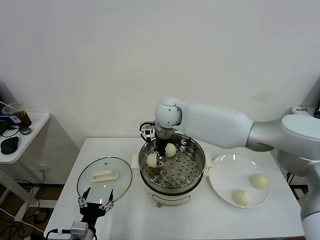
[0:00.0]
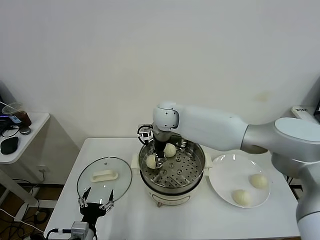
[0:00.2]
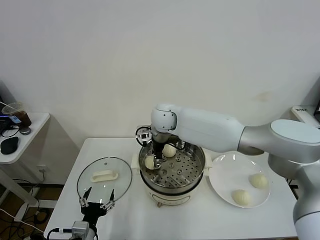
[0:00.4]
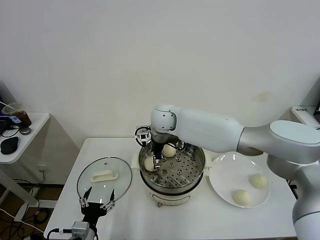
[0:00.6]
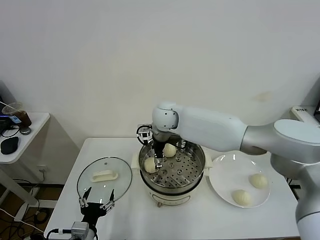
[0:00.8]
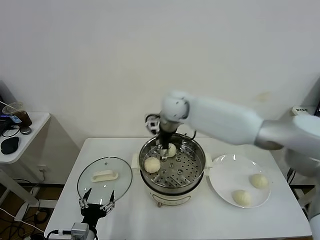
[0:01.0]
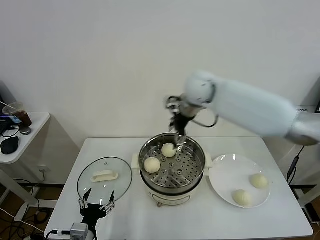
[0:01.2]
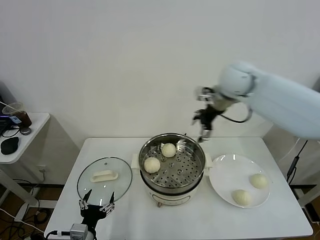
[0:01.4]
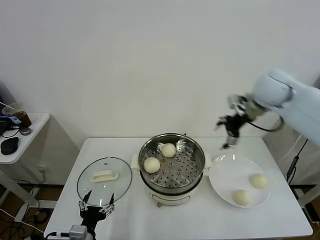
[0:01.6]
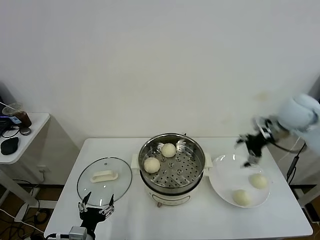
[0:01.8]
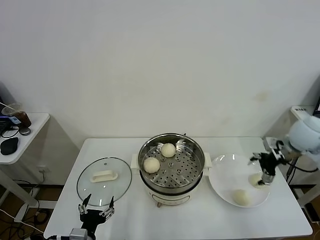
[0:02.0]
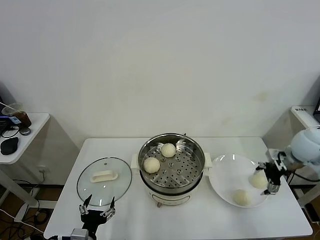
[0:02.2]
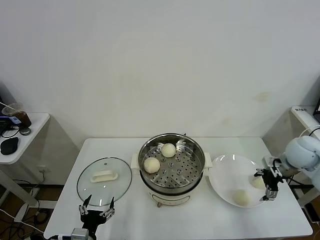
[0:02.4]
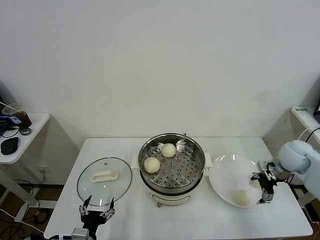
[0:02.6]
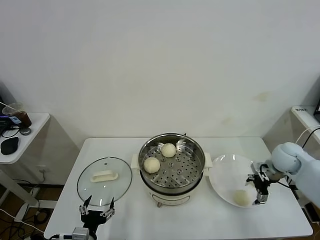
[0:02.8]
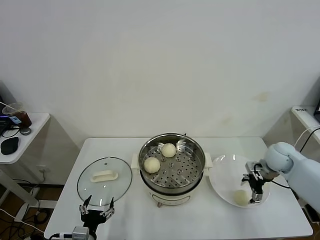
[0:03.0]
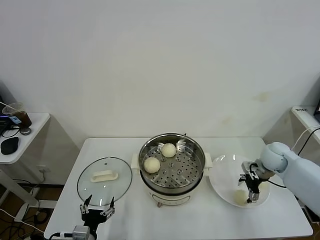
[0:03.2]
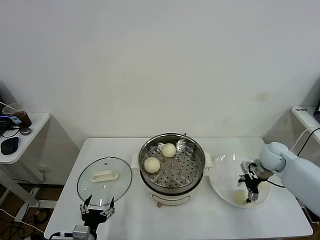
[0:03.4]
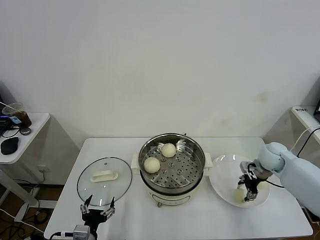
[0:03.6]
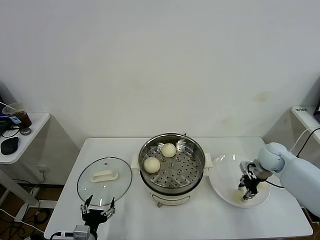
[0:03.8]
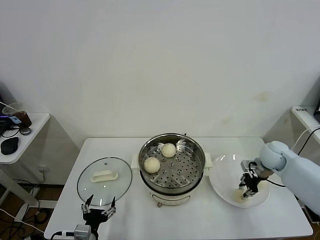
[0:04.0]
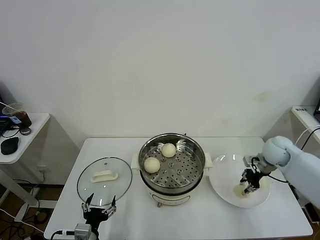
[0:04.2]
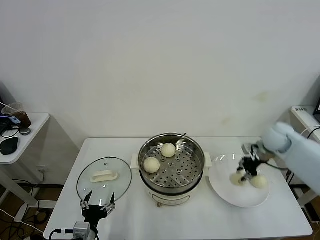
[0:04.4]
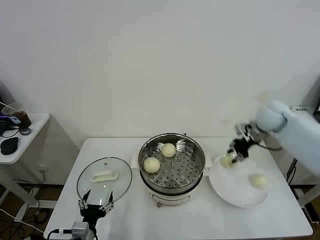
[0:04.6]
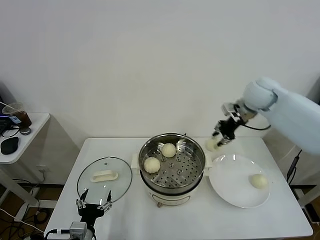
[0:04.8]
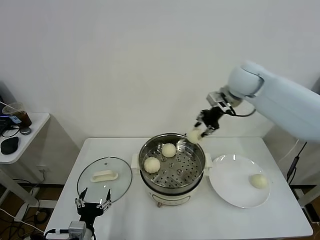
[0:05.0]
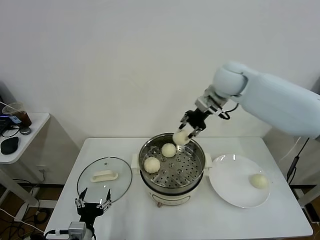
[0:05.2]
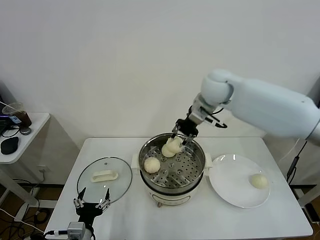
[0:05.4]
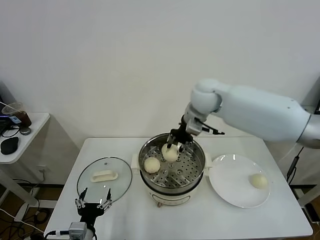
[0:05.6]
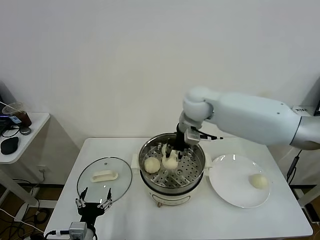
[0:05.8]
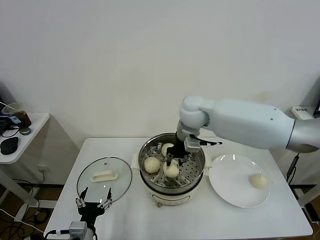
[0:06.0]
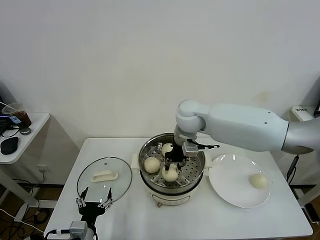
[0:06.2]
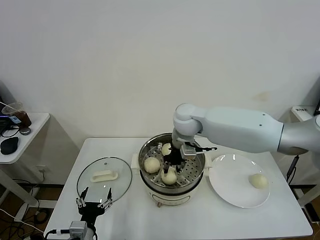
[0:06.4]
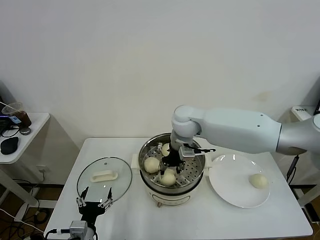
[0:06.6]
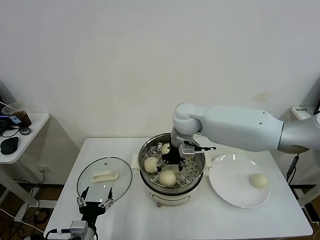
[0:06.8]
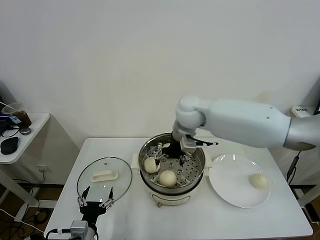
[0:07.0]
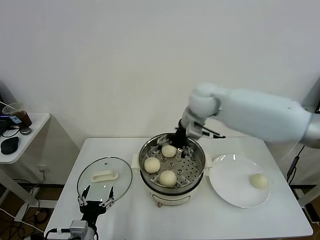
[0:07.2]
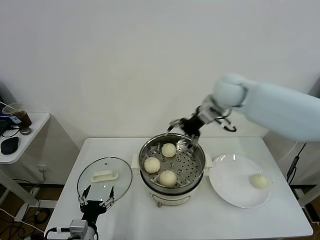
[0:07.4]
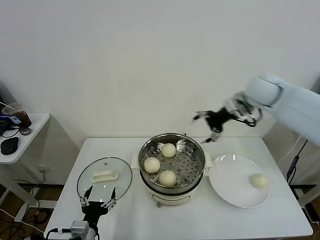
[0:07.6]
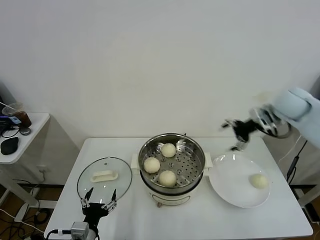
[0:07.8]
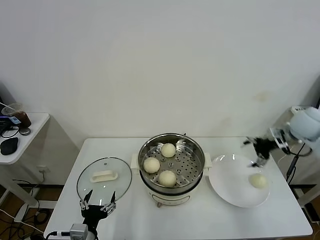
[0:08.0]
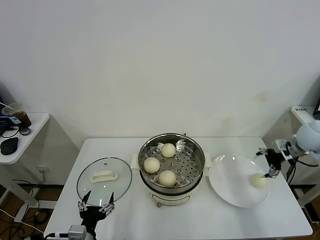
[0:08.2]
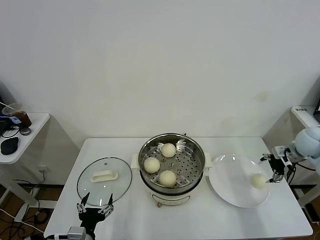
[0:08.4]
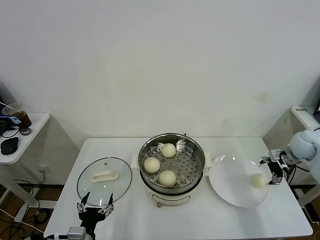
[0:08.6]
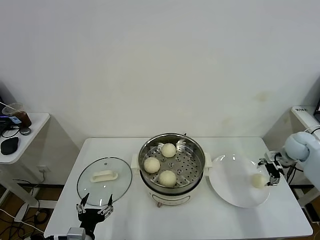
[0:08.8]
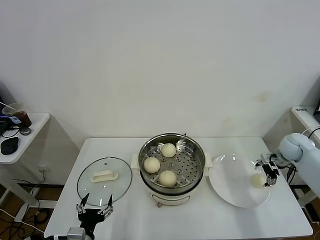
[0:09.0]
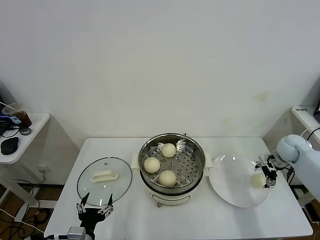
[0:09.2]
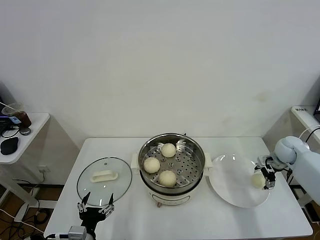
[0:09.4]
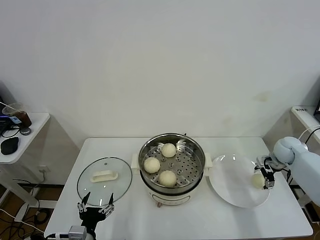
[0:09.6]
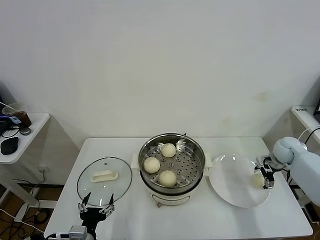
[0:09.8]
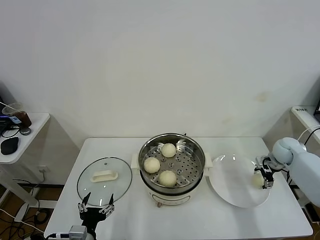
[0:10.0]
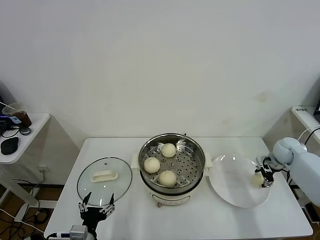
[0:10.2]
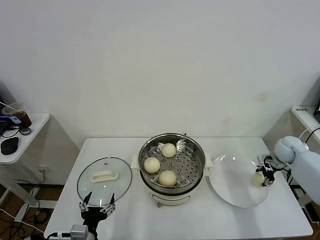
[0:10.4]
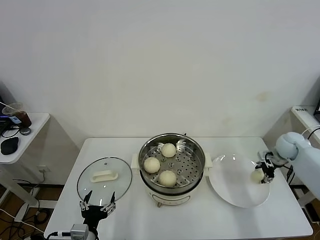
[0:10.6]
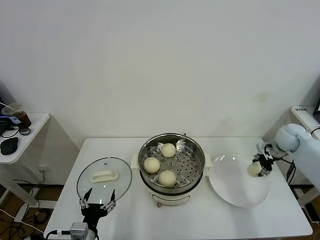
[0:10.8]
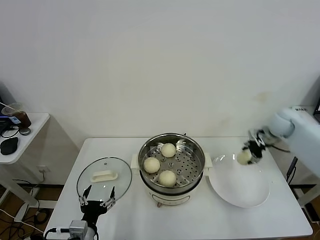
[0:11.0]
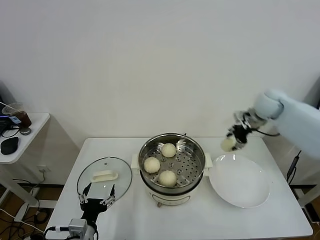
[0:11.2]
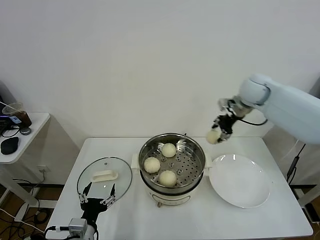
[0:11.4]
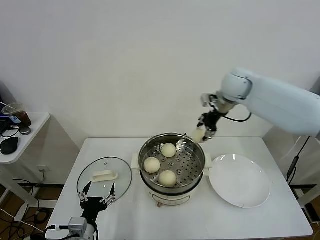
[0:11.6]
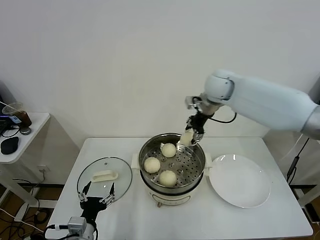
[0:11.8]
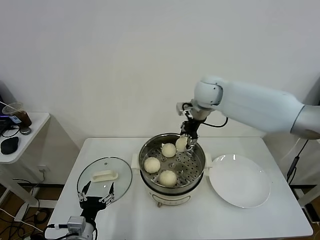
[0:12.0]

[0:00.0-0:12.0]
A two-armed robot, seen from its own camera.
Task of the whole recording: take steamed baozi put them in steamer.
Step, 0:01.0 to 0:04.0: Grasp the baozi in the plate with right gripper.
Step, 0:04.2 to 0:06.8: Place the baozi on the steamer with right gripper.
Step, 0:07.0 to 0:10.4: Grasp the baozi in the plate with right gripper.
0:00.0 to 0:01.6: The right gripper goes about 30 cm to the right, and opens.
0:01.6 to 0:03.0: The right gripper goes roughly 25 cm downward and to the right.
0:03.0 to 0:04.4: The right gripper is displaced upward by roughly 5 cm, and closes its fingers.
0:04.4 to 0:06.0: The right gripper heads to the left, covering approximately 30 cm.
0:06.0 to 0:07.6: The right gripper goes some 20 cm to the right, and opens up.
0:07.6 to 0:09.0: The right gripper travels downward and to the right by approximately 30 cm.
0:09.0 to 0:10.4: The right gripper closes.
0:10.4 to 0:12.0: The right gripper moves to the left and upward, about 40 cm.

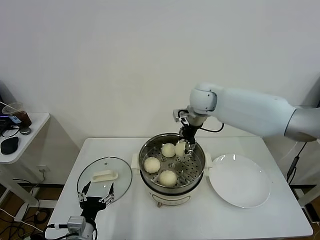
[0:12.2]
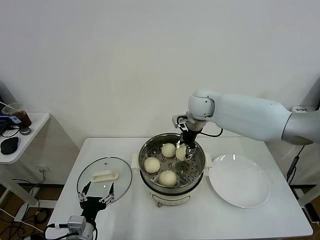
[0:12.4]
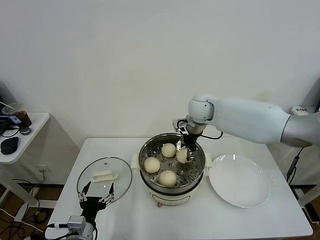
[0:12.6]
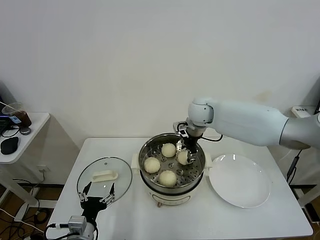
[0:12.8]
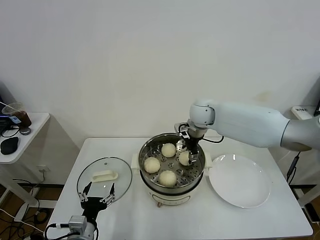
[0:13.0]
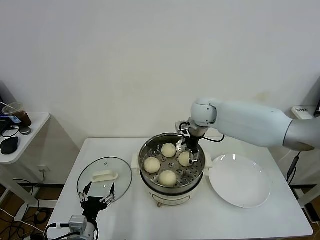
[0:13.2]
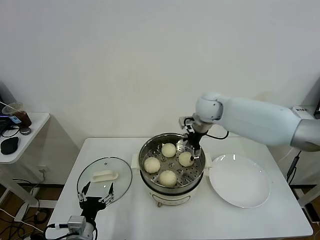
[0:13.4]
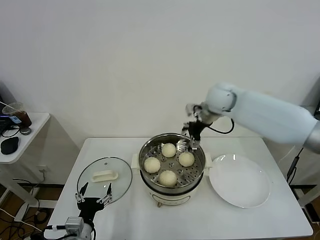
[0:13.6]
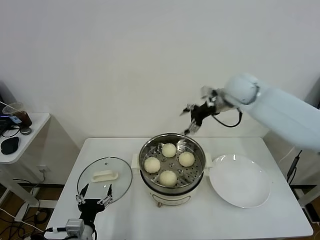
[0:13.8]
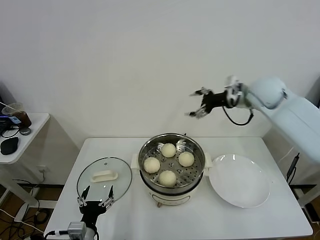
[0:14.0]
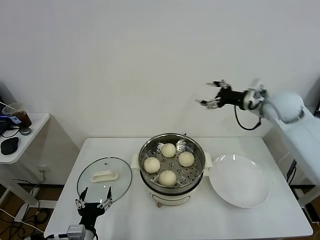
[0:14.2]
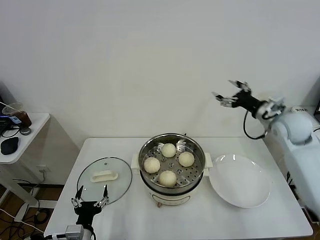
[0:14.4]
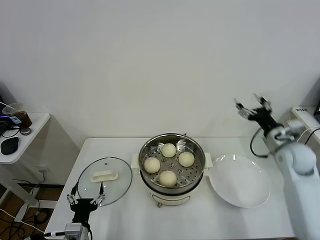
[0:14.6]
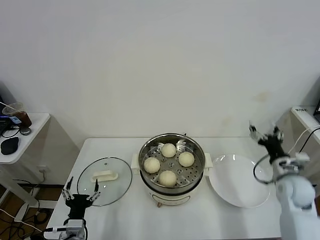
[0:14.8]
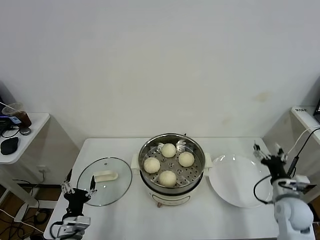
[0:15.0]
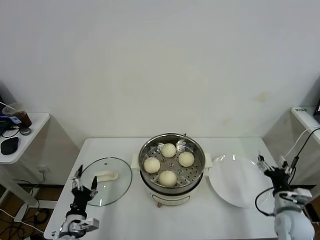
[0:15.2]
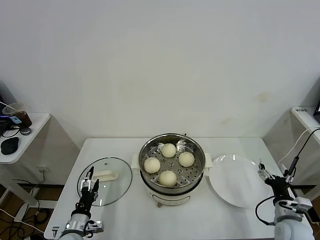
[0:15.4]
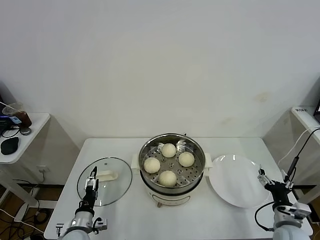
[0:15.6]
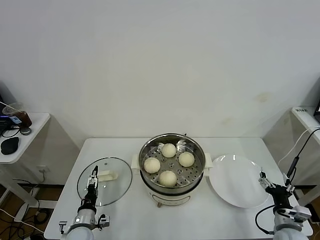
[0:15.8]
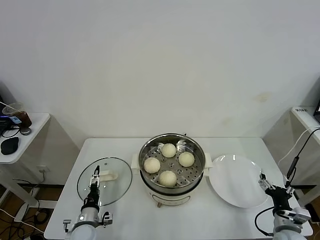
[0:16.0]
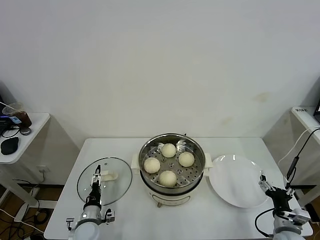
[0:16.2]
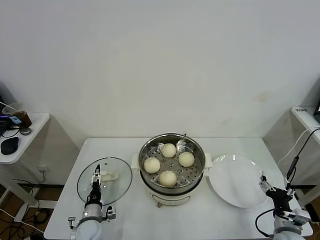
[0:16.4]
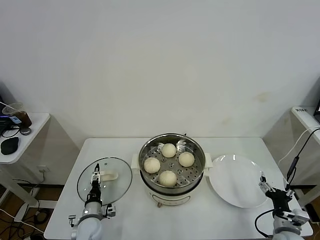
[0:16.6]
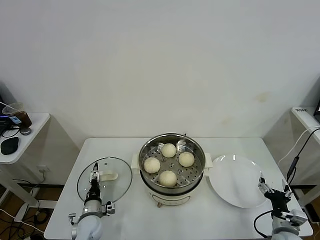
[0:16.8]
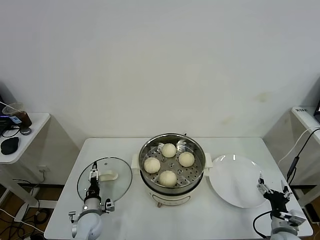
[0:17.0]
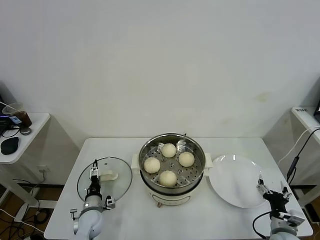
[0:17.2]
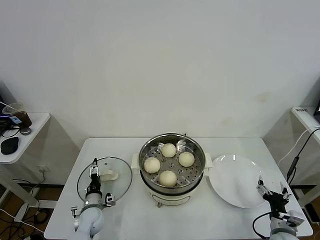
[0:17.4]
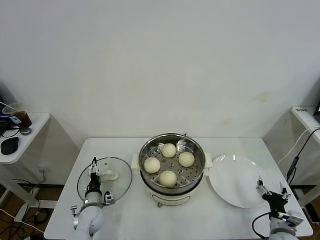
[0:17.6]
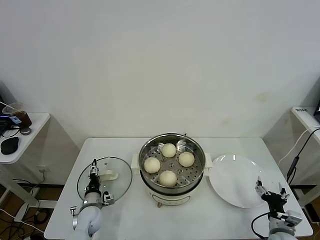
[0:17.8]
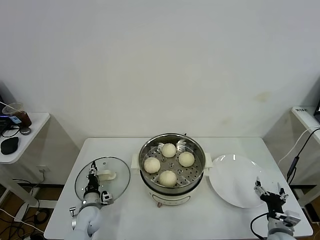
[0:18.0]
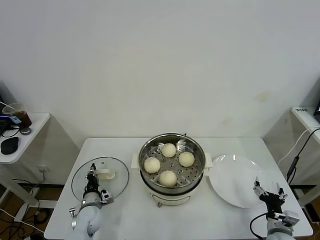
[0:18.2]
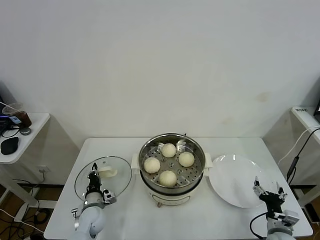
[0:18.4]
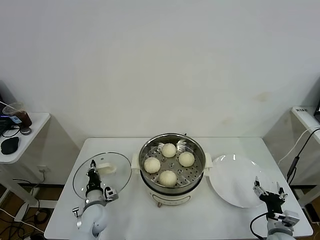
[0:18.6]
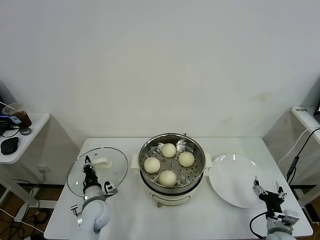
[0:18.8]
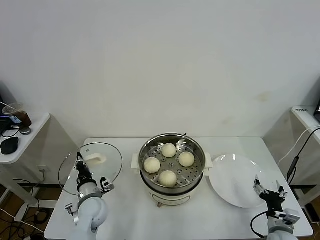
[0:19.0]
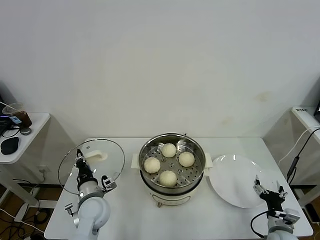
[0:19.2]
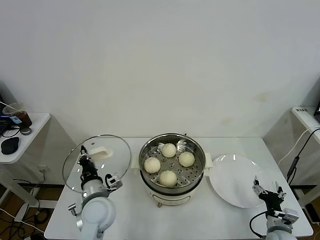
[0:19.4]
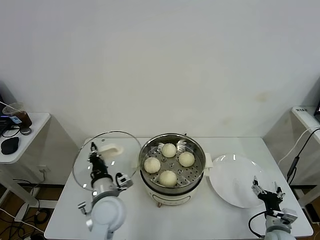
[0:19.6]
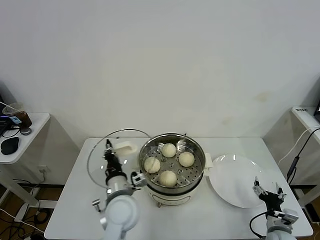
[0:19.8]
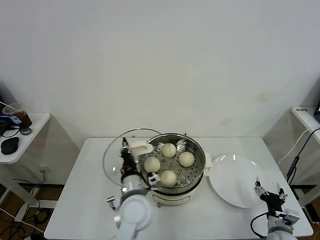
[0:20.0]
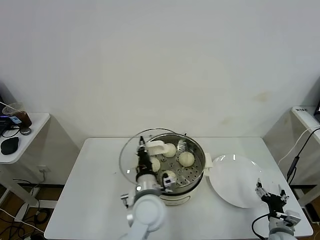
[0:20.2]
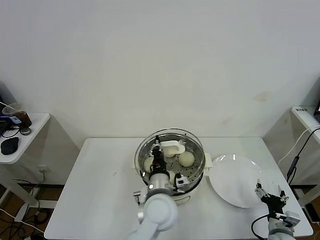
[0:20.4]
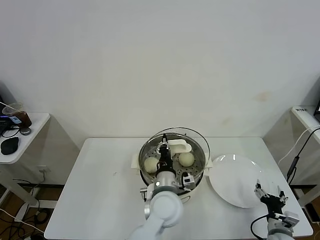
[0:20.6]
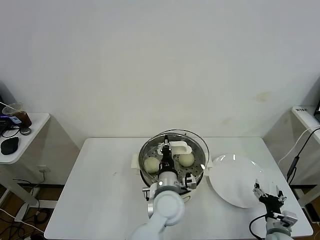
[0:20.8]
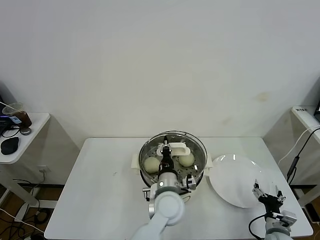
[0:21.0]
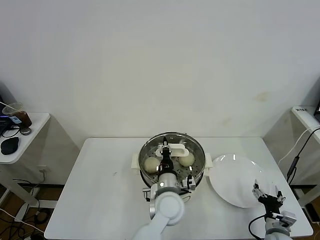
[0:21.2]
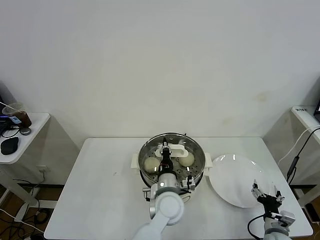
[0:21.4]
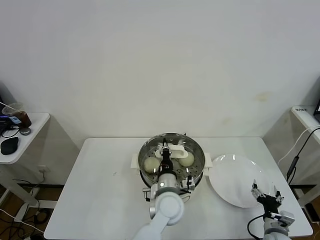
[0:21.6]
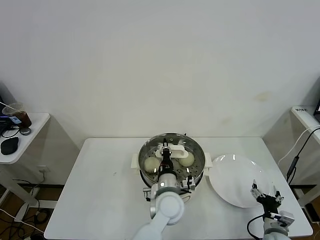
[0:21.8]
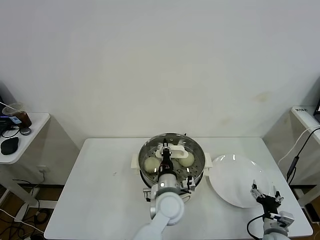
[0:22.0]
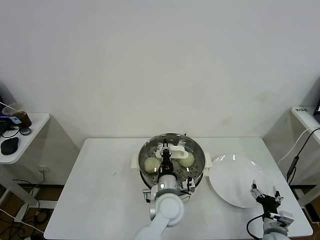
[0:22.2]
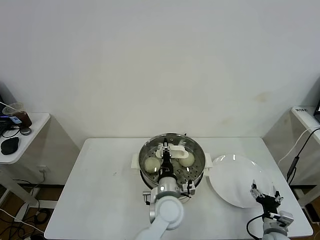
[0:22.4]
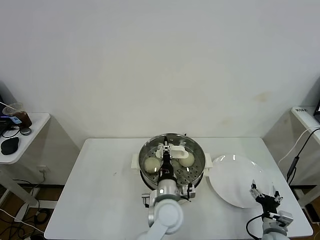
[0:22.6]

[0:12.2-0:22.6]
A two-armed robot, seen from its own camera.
Task of the whole recording: take steamed baozi put them in steamer.
Step, 0:13.6 to 0:18.4: Grasp the pot lid with left gripper.
Step, 0:18.6 to 0:22.4: Place the pot lid on the steamer with left gripper.
0:12.2 to 0:13.6: The right gripper is displaced to the right by approximately 5 cm, and opens.
0:13.6 to 0:15.2: The left gripper goes about 5 cm downward; the right gripper goes approximately 50 cm backward, downward and to the right.
0:15.2 to 0:16.6: The right gripper travels backward by about 5 cm. Meanwhile the left gripper shifts approximately 10 cm forward and downward.
0:16.6 to 0:18.2: The left gripper closes its fingers.
0:18.2 to 0:19.6: The left gripper shifts approximately 20 cm upward and to the right.
0:19.6 to 0:21.2: The left gripper travels to the right by approximately 20 cm.
0:21.2 to 0:22.6: The left gripper opens its fingers.
